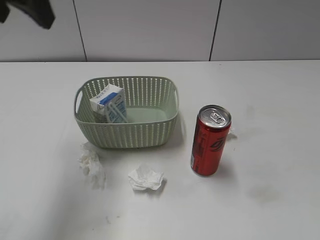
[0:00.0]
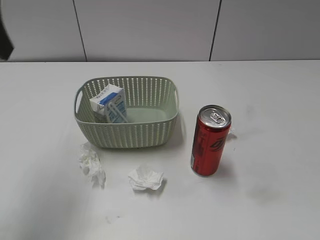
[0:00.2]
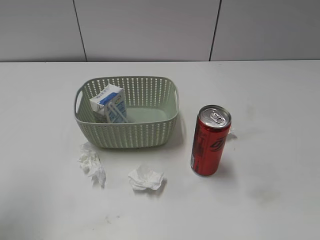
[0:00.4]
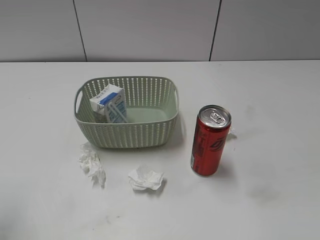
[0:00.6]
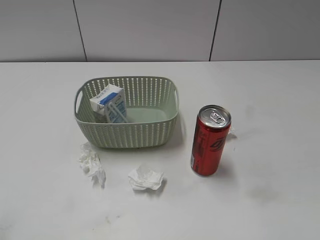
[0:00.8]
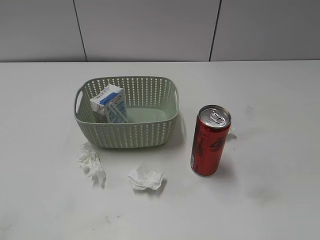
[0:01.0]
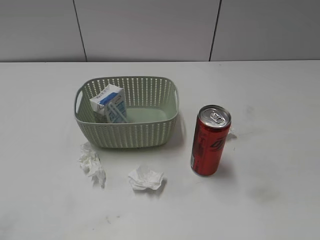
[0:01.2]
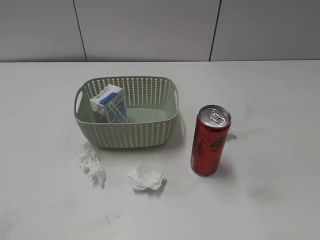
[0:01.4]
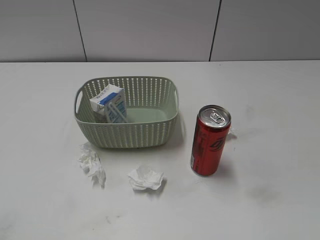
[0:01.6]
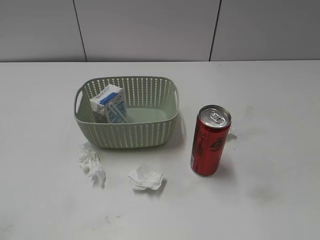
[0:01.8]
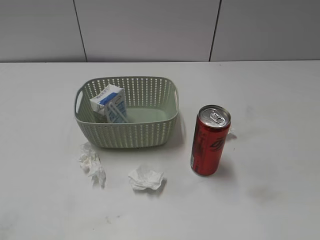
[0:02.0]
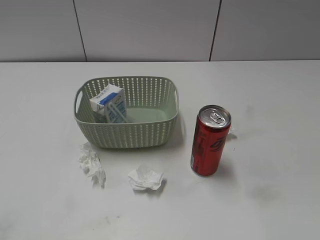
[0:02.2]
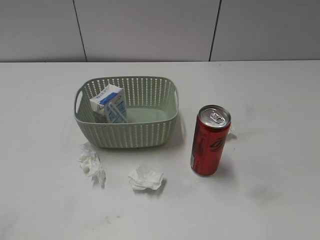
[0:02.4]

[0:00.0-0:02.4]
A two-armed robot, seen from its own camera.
0:00.0 to 0:01.2: The left gripper is displaced backward, to the left and downward by approximately 30 cm.

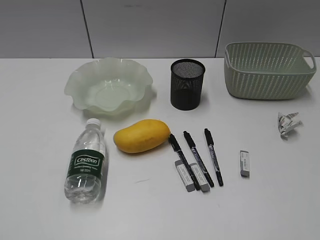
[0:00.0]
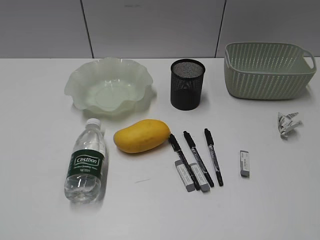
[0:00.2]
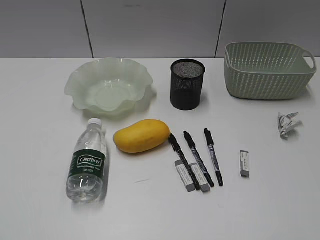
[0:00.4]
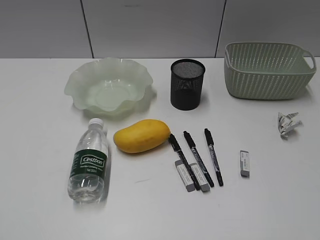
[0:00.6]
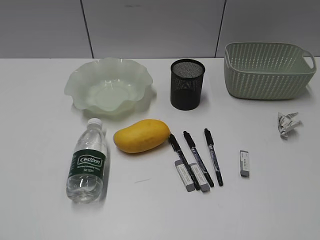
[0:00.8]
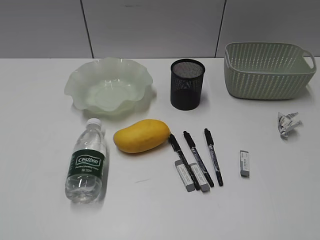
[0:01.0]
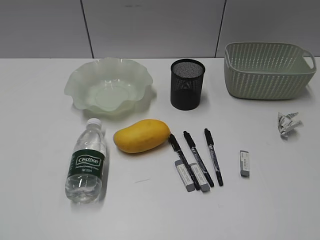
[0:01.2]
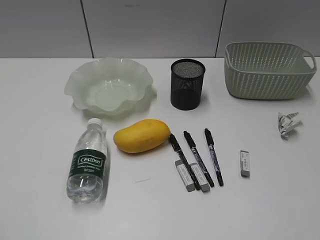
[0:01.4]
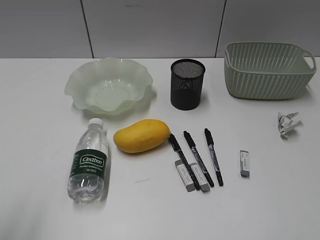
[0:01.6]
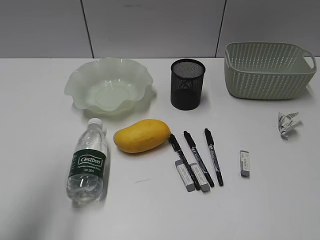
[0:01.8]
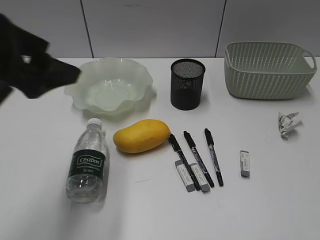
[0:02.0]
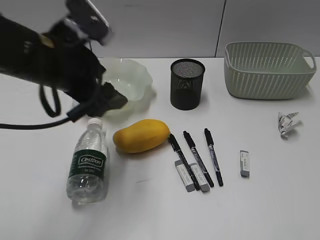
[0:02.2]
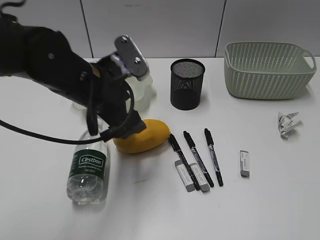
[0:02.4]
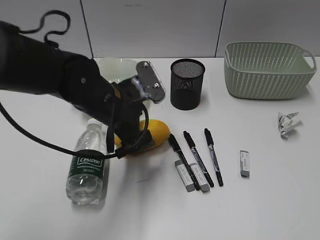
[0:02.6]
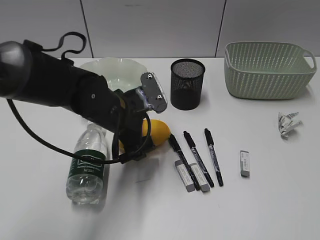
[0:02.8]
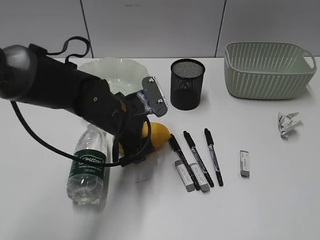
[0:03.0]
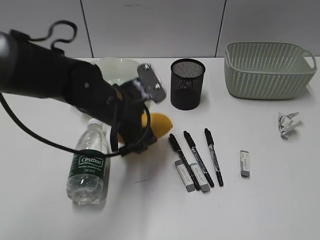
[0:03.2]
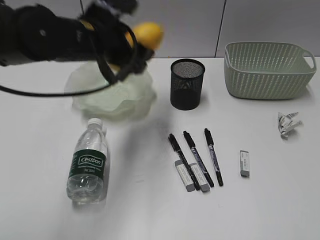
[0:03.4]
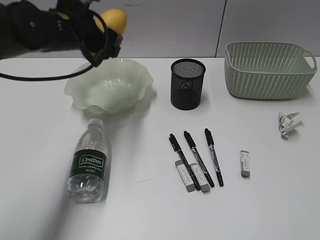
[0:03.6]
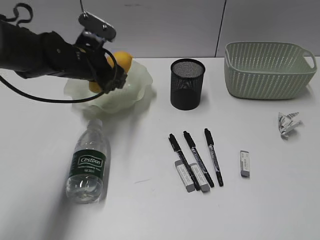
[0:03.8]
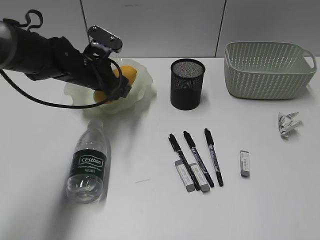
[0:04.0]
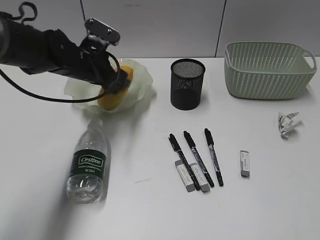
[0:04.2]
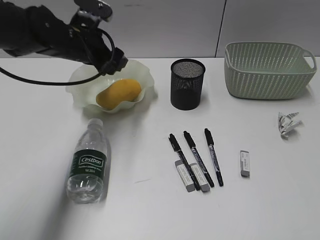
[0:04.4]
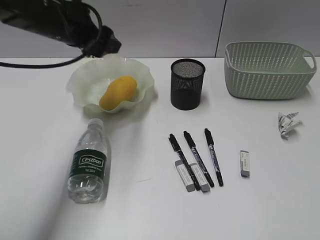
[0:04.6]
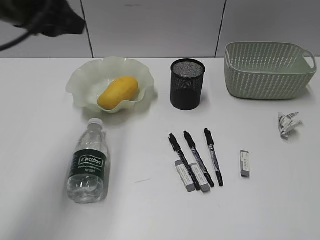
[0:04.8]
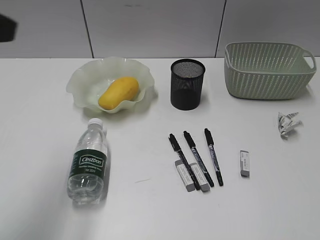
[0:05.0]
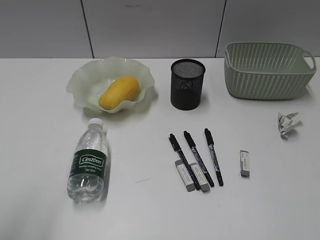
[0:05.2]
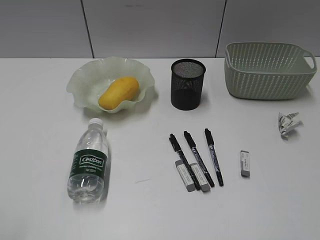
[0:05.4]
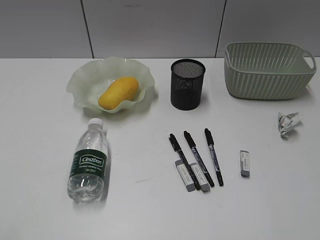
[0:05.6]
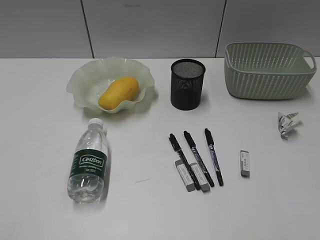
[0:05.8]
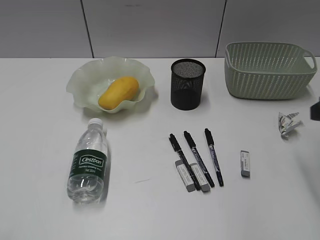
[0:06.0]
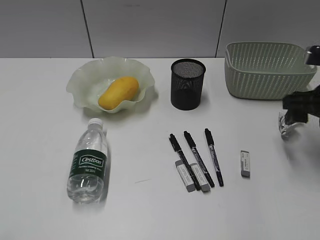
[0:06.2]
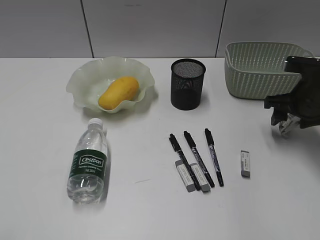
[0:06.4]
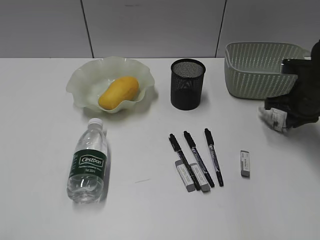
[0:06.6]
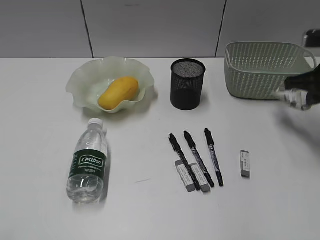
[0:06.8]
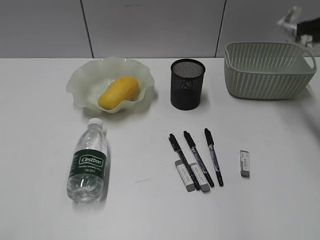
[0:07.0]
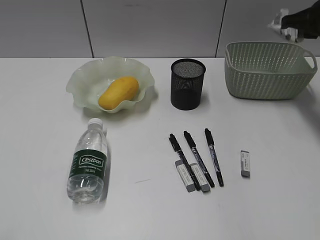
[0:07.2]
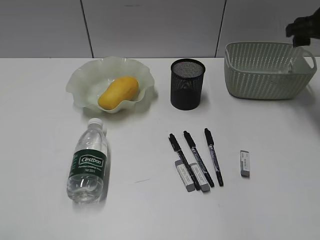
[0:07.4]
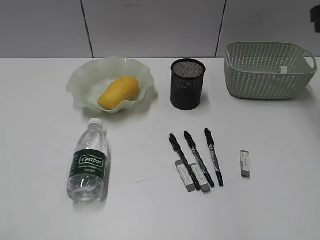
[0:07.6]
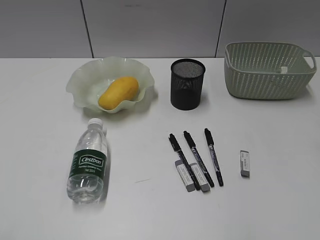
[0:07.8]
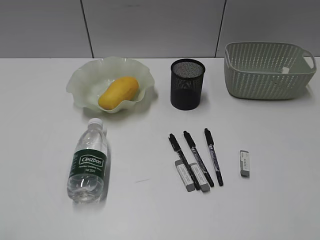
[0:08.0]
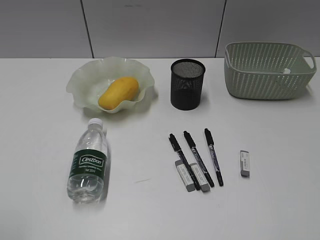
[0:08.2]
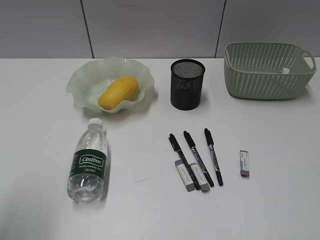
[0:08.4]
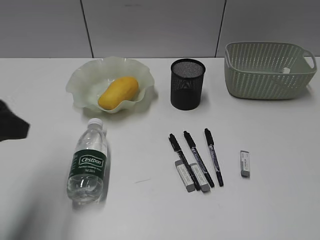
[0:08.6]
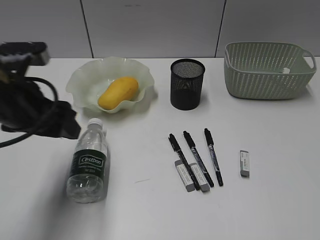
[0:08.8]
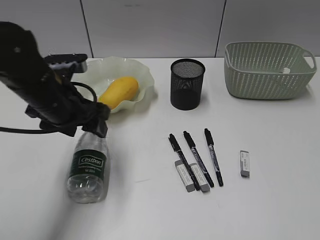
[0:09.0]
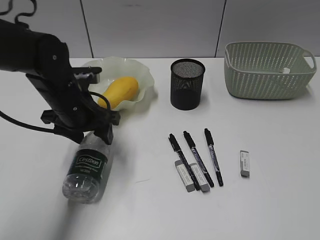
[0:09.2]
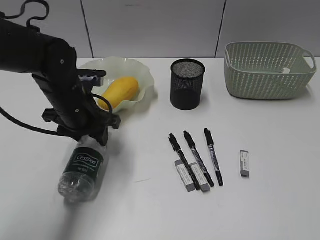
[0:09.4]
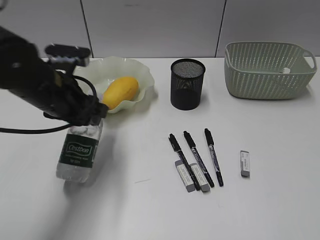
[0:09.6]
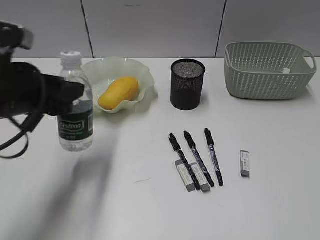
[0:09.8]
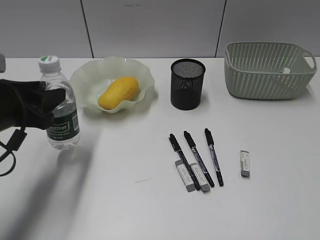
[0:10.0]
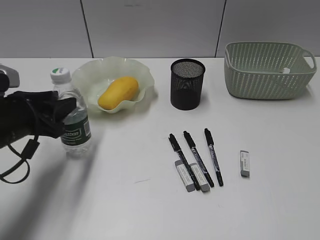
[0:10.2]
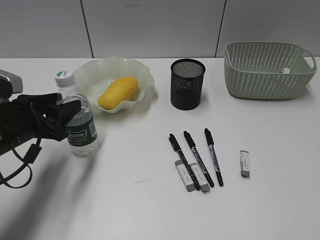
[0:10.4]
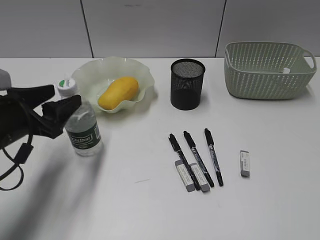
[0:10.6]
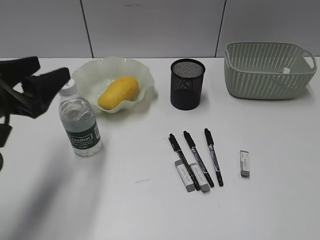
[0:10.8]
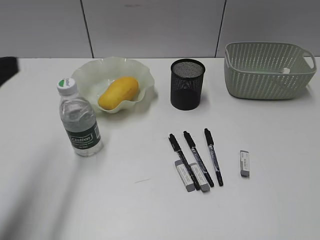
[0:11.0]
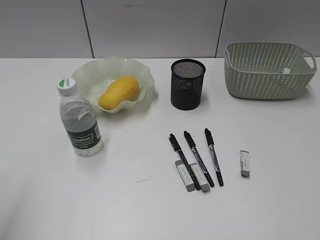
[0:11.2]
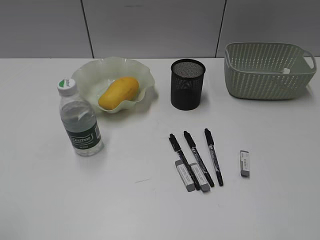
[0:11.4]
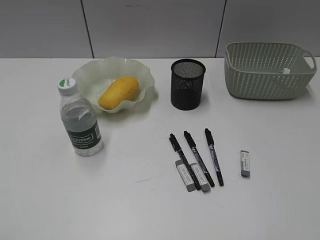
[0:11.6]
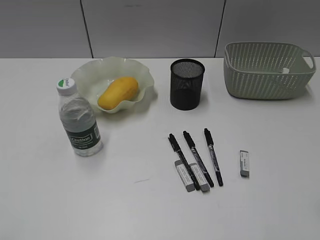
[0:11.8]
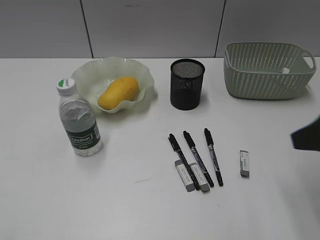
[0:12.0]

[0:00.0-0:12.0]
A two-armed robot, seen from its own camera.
Step, 0:01.4 to 0:02.8: Grasp the mango with left gripper.
Step, 0:03.0 to 0:04.2: Place the mango in the plate with left gripper.
Step, 0:04.4 to 0:06.6: Grasp the waste paper with right gripper.
Step, 0:06.8 to 0:07.4: Place the waste paper in the basket with right gripper.
Step, 0:07.6 to 0:09.2: Grasp the bottle with left gripper.
Step, 0:09.4 to 0:10.6: Stand the bottle with left gripper.
0:01.6 to 0:03.0: The left gripper heads forward, to the right and downward, covering about 40 cm, and opens up.
0:03.0 to 0:04.4: The left gripper goes up and down, approximately 15 cm each way, reversing 2 times.
0:04.4 to 0:06.0: The right gripper is displaced forward by about 25 cm. The left gripper travels backward and to the left by some 40 cm, and closes its fingers.
0:06.0 to 0:07.6: The right gripper shifts about 15 cm forward and upward, and closes and opens again.
0:07.6 to 0:09.0: The right gripper heads backward, covering some 35 cm. Meanwhile the left gripper moves forward and to the right, some 35 cm.
0:09.0 to 0:10.4: The left gripper moves to the left, approximately 10 cm.
0:10.4 to 0:12.0: The left gripper goes approximately 30 cm backward and upward. The right gripper heads forward, covering roughly 20 cm.

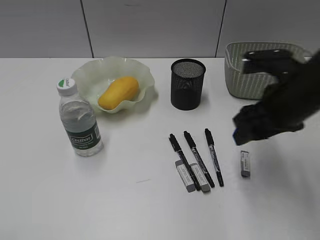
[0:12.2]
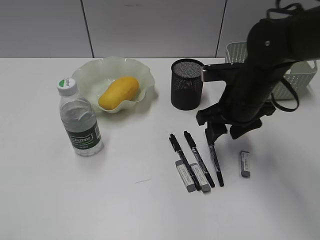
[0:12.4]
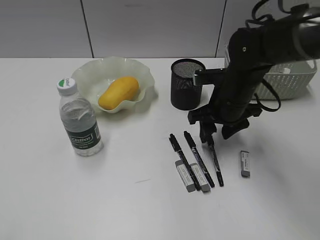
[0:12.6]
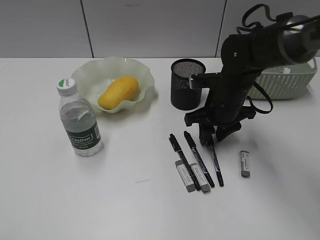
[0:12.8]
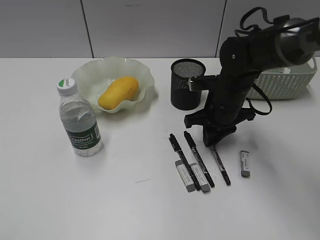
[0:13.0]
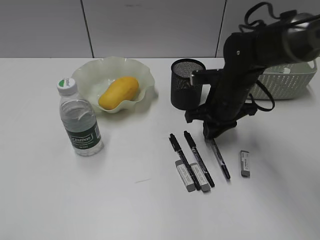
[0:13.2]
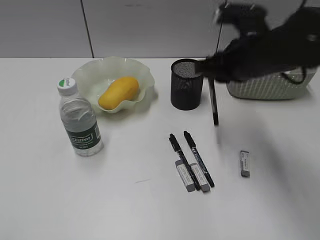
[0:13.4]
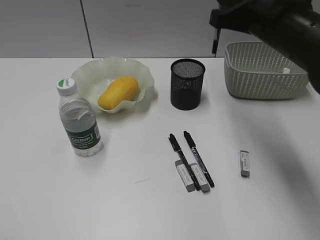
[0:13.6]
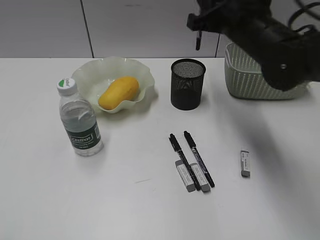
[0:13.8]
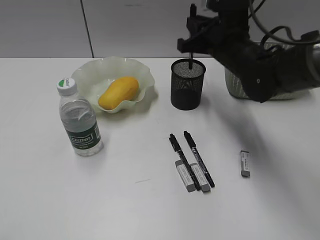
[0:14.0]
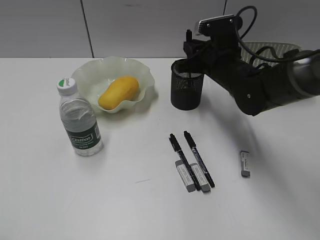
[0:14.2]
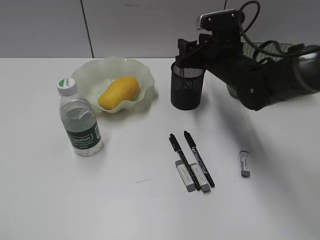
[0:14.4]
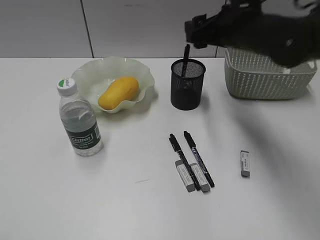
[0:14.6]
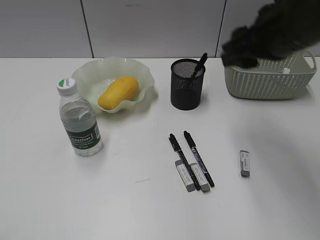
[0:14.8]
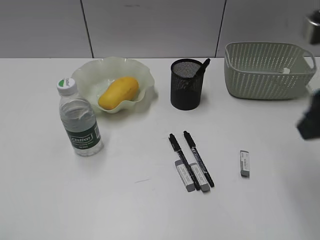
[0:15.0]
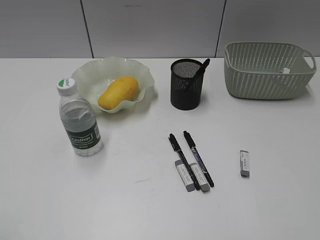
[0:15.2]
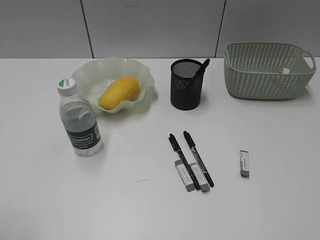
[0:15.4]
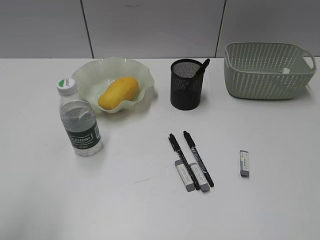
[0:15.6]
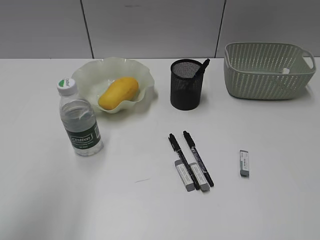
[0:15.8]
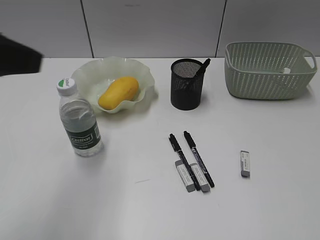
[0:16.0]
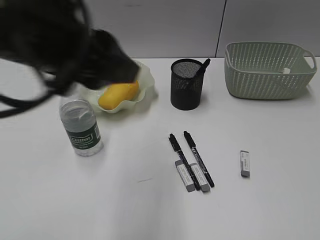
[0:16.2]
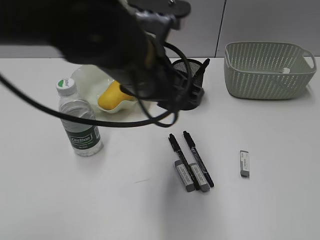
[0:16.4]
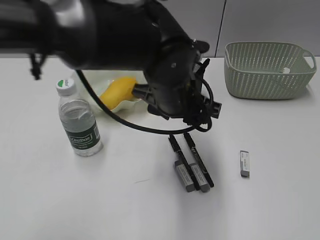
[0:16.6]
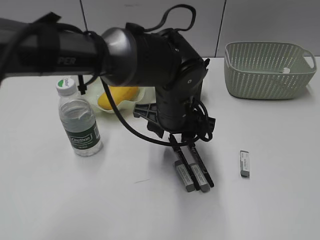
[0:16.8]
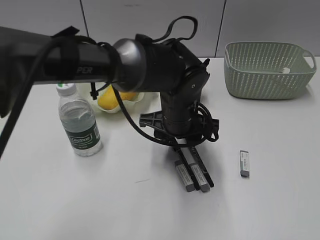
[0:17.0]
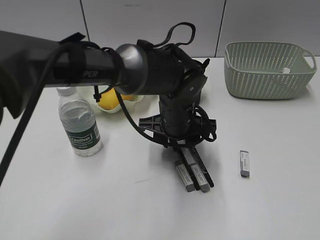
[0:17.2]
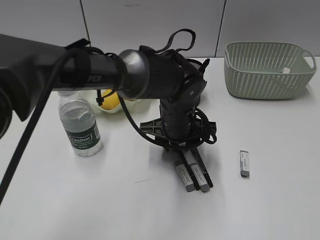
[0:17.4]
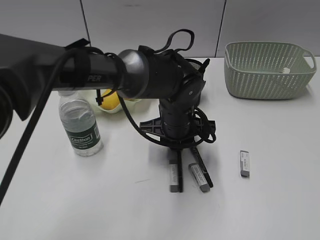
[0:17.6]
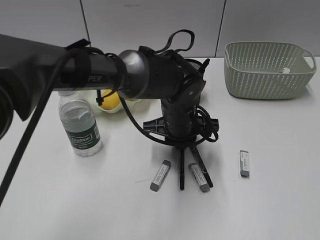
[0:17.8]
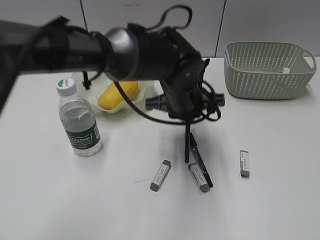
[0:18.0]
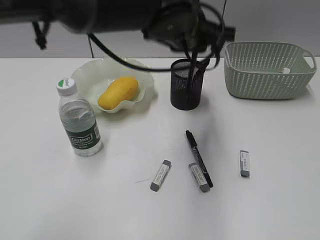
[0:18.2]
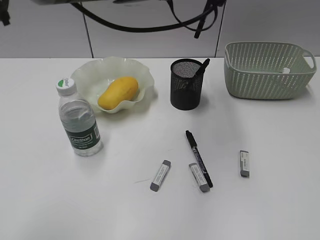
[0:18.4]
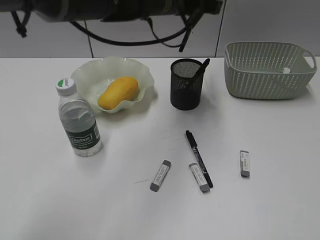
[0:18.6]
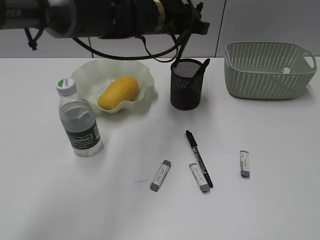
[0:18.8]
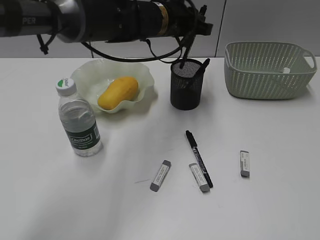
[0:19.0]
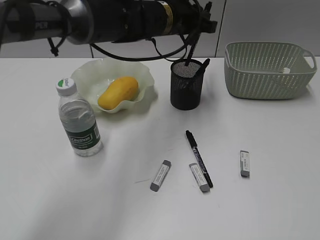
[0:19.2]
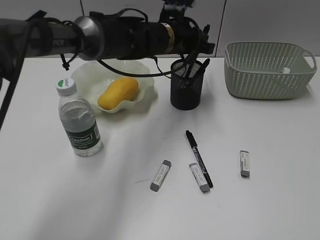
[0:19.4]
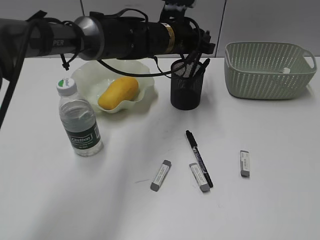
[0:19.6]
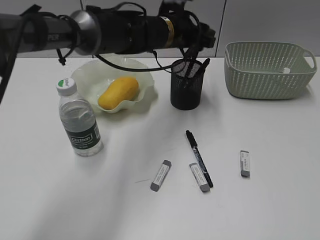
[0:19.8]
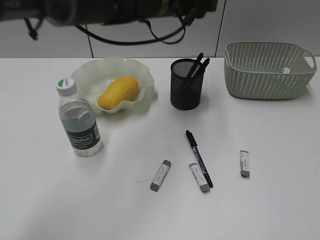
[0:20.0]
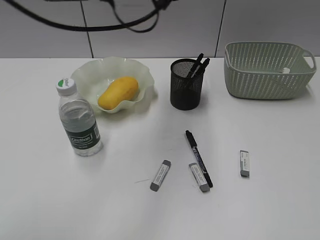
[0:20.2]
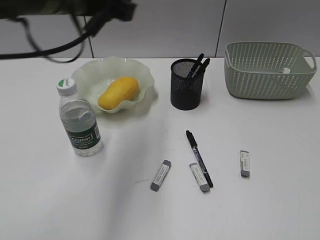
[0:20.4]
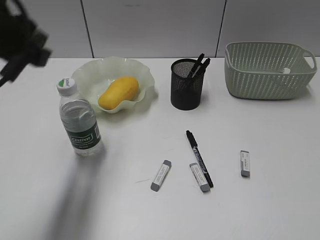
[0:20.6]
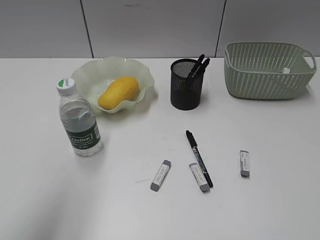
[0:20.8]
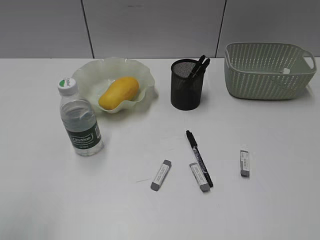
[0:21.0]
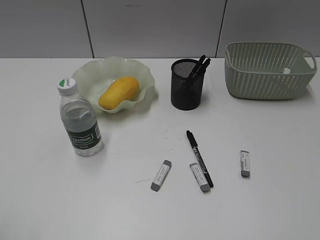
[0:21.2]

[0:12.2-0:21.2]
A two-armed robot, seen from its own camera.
Step, 0:13.2 to 0:14.6: Place the black pen in pen holder with right gripper.
Step, 0:14.8 to 0:17.6: Grasp the black pen with left gripper.
Step, 0:17.8 to 0:19.8: Place the black pen in pen holder with left gripper.
0:12.2 to 0:13.8: The right gripper travels forward by roughly 10 cm, moves some 10 cm downward and comes back, and closes up.
0:13.8 to 0:15.2: The right gripper moves backward and to the right, roughly 30 cm, and opens its fingers.
0:15.2 to 0:16.6: The right gripper goes approximately 10 cm backward. The left gripper is displaced to the right and forward by about 40 cm.
0:16.6 to 0:18.2: The left gripper moves upward, approximately 10 cm, and closes.
0:18.2 to 0:19.8: The left gripper goes roughly 10 cm forward and downward, and opens its fingers.
0:19.8 to 0:21.2: The left gripper moves backward and to the left, roughly 50 cm.
